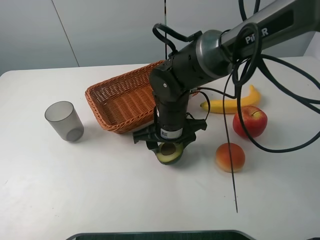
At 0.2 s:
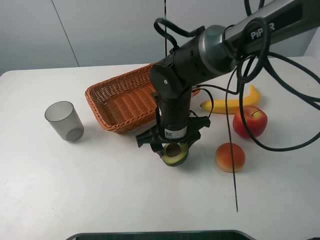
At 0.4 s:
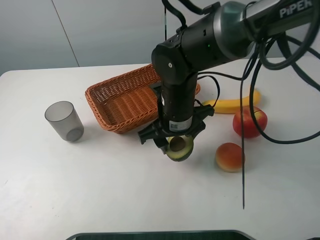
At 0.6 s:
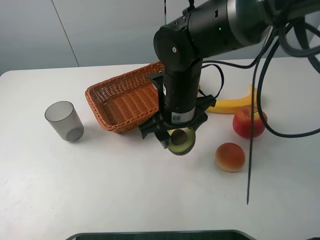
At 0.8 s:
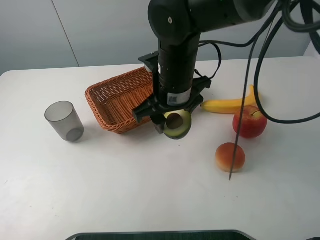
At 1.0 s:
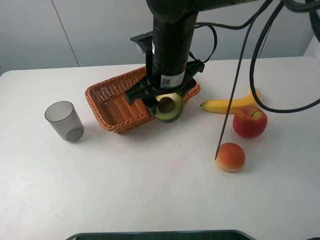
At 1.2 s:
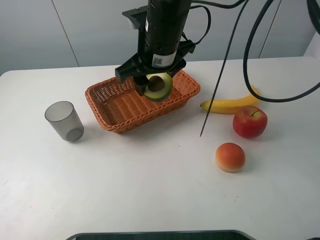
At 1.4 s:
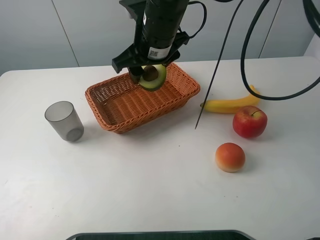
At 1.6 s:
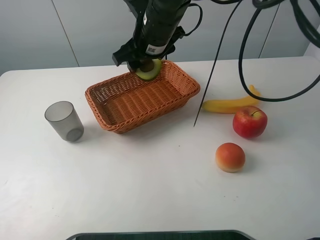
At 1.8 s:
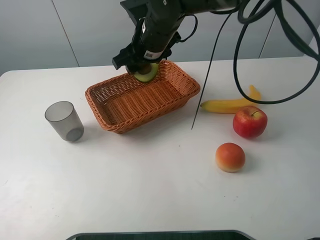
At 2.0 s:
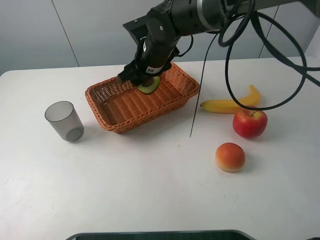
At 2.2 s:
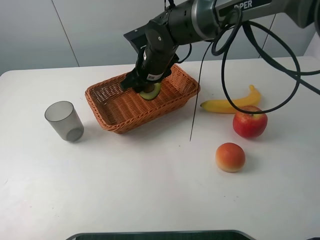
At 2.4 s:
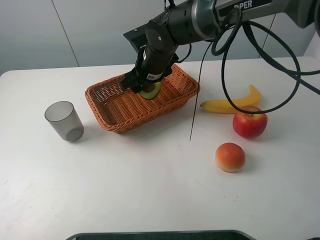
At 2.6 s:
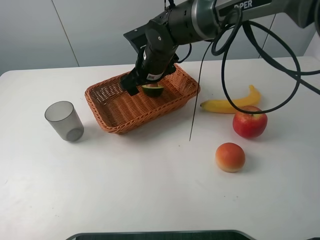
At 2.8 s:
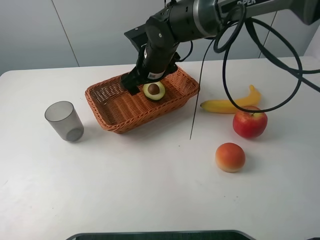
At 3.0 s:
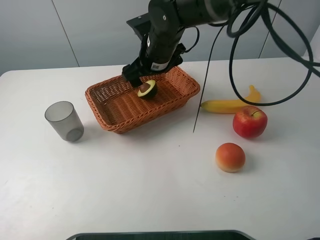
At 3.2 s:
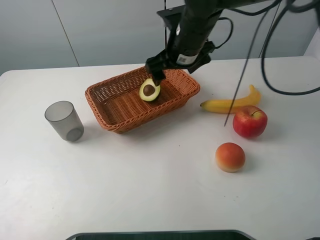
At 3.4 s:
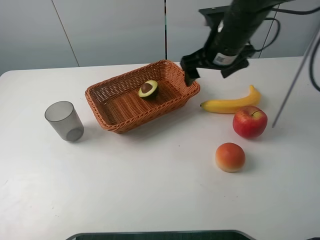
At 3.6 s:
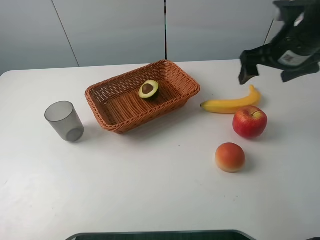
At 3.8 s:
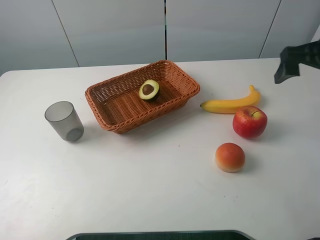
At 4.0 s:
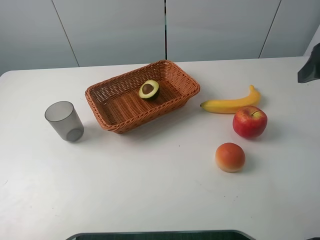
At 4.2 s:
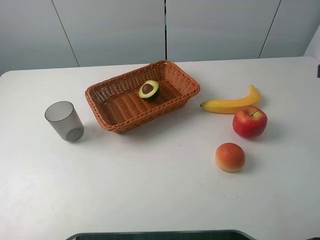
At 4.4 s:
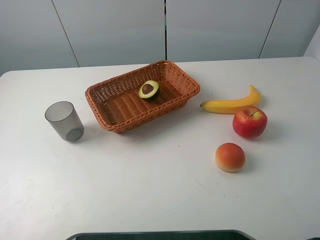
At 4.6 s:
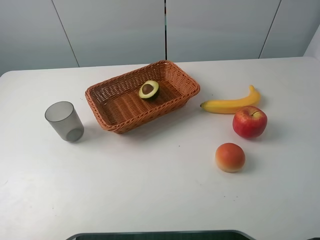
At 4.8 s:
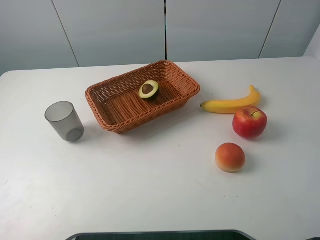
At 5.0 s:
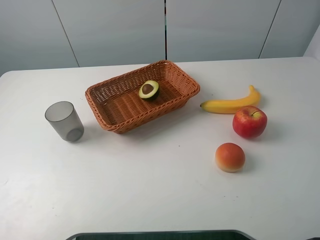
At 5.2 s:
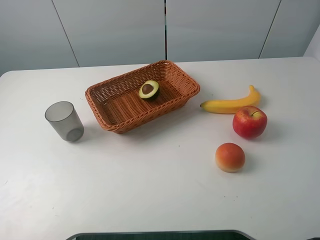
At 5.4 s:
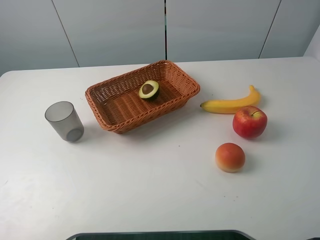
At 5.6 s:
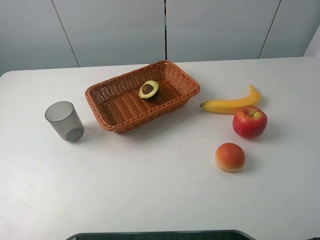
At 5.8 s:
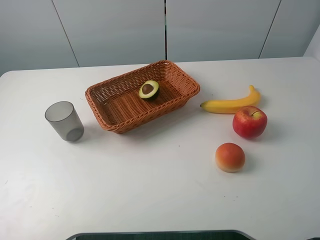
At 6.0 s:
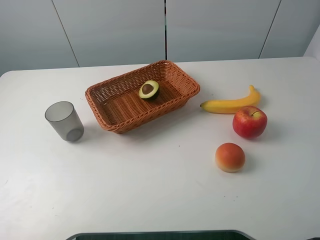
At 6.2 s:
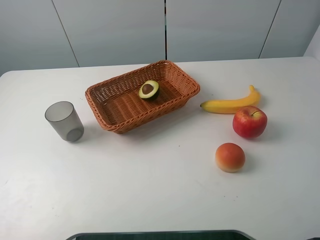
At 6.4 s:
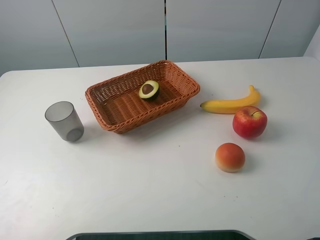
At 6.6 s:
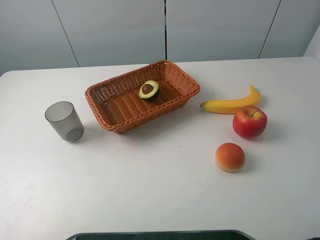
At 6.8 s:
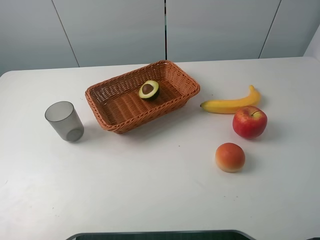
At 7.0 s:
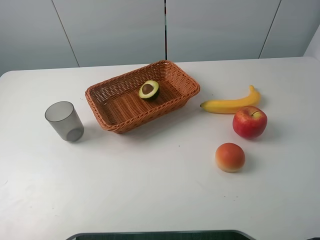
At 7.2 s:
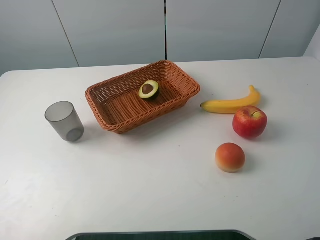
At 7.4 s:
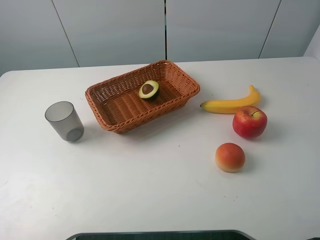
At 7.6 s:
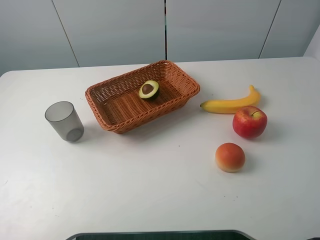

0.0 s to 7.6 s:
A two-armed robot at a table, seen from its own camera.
Task of the whole recording: randomly pick up an item from the table and put it in the basket.
Step, 0.0 to 3.0 s: Place the avocado into the basket with the right gripper.
0.0 to 1.6 s: The right gripper is displaced upward and forward by roughly 15 cm.
1.6 to 3.0 s: The right gripper shifts some 5 cm downward, and opens its fingers.
3.0 to 4.6 s: The right gripper is displaced backward, to the right and upward by roughly 50 cm.
6.0 to 7.6 s: Both grippers stay about where they are.

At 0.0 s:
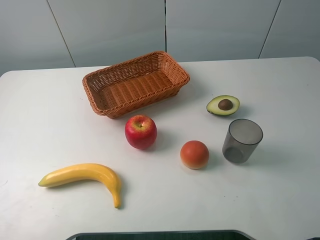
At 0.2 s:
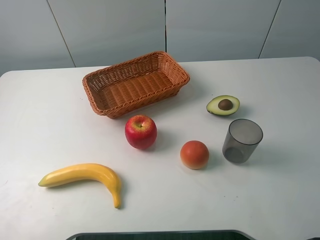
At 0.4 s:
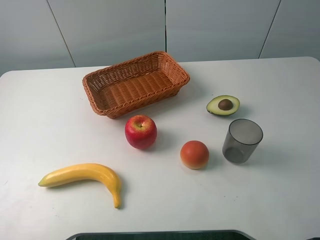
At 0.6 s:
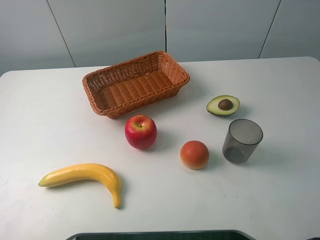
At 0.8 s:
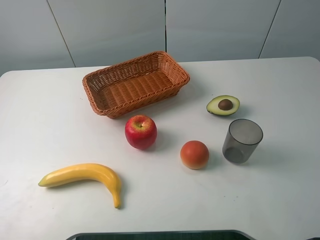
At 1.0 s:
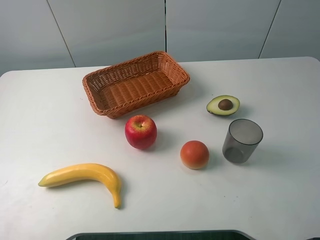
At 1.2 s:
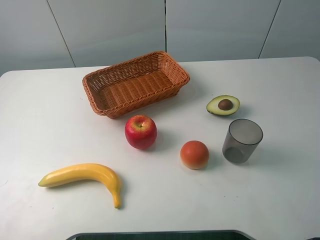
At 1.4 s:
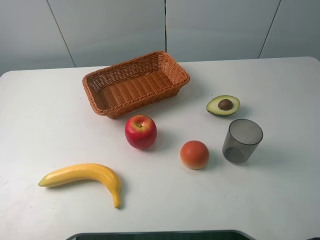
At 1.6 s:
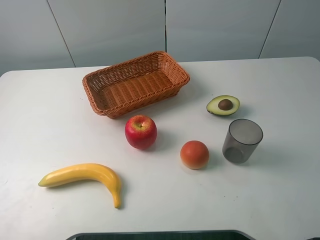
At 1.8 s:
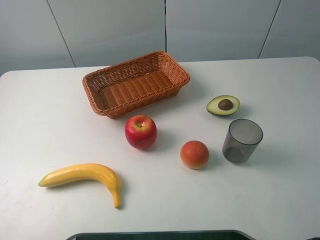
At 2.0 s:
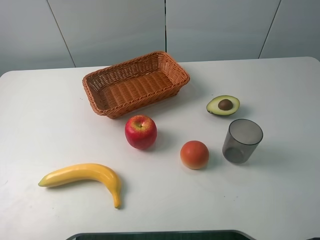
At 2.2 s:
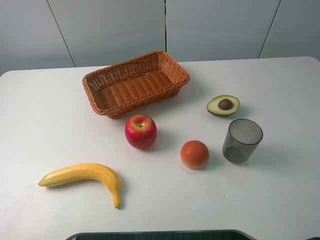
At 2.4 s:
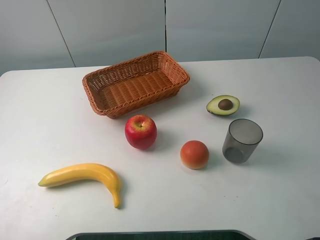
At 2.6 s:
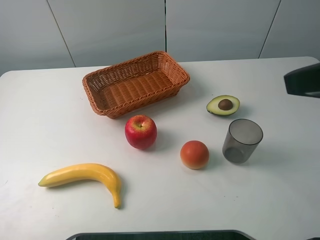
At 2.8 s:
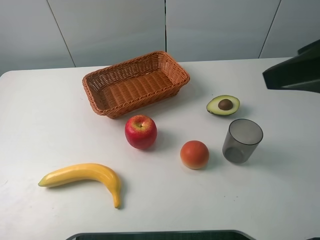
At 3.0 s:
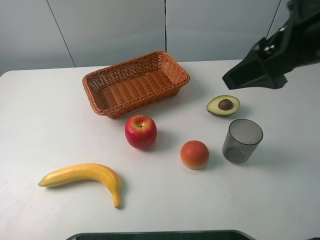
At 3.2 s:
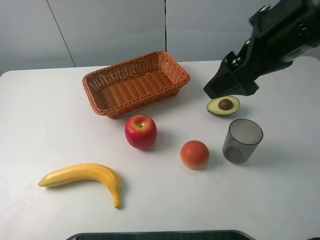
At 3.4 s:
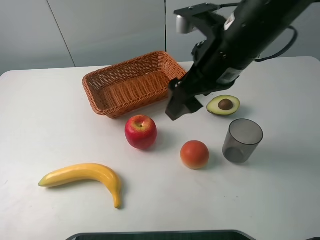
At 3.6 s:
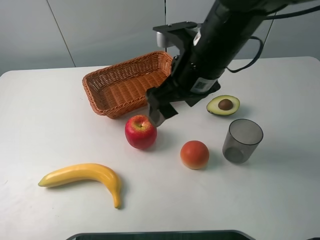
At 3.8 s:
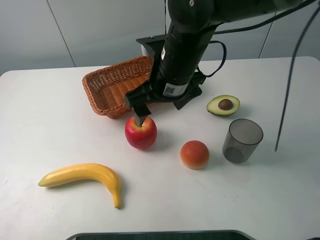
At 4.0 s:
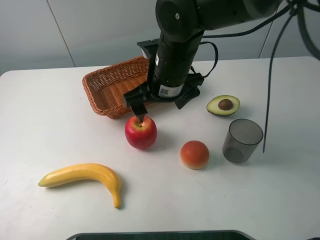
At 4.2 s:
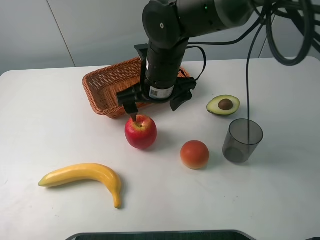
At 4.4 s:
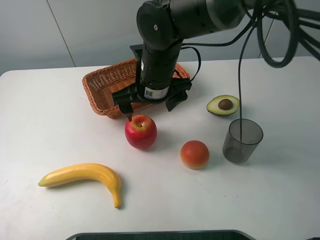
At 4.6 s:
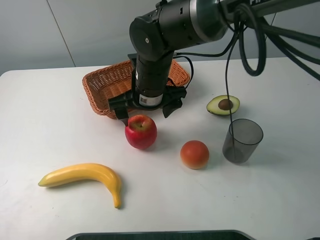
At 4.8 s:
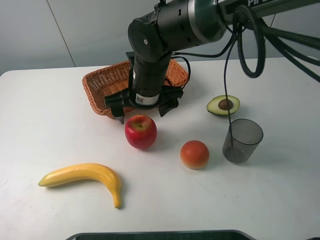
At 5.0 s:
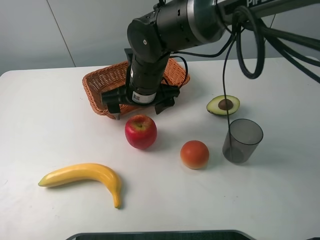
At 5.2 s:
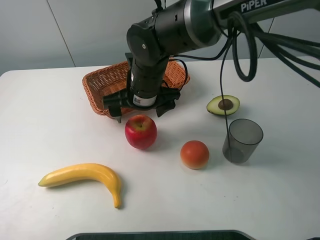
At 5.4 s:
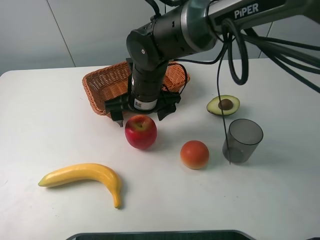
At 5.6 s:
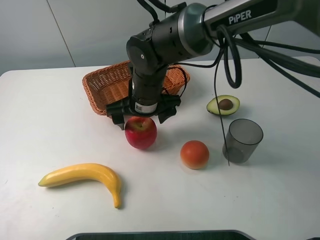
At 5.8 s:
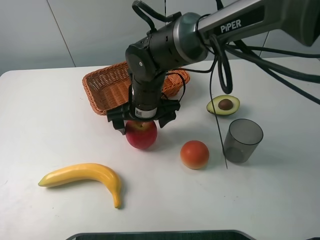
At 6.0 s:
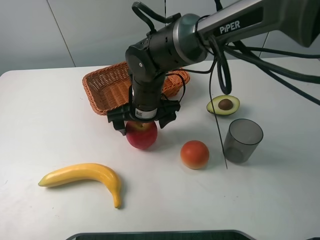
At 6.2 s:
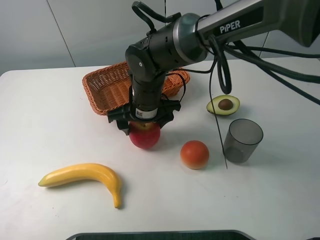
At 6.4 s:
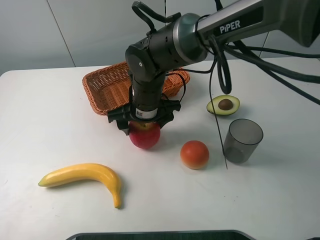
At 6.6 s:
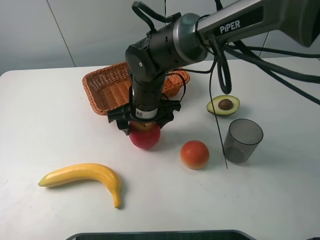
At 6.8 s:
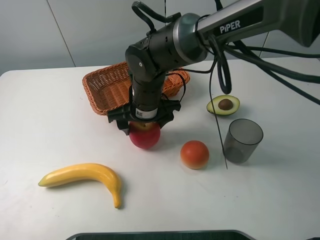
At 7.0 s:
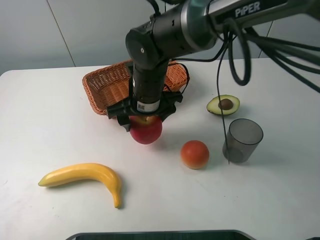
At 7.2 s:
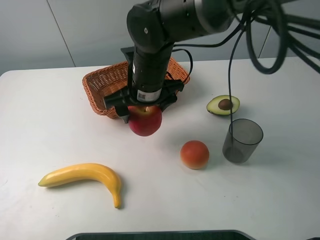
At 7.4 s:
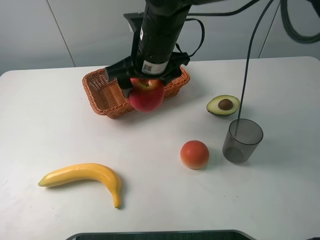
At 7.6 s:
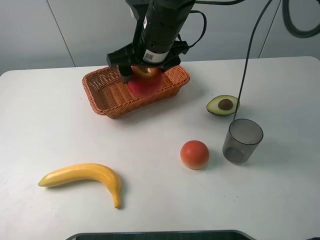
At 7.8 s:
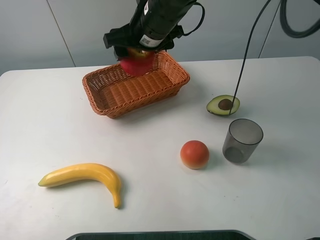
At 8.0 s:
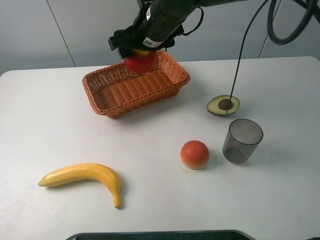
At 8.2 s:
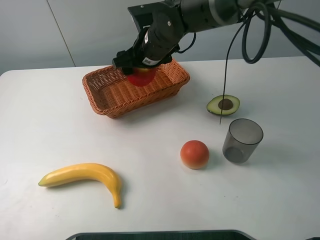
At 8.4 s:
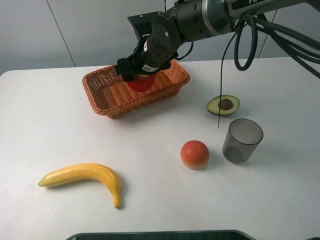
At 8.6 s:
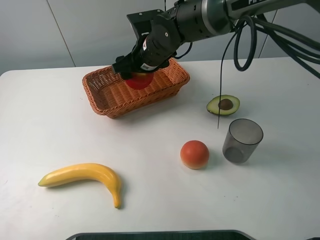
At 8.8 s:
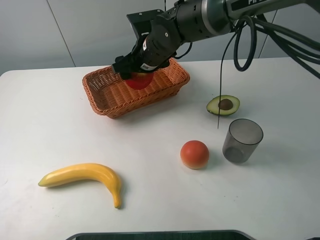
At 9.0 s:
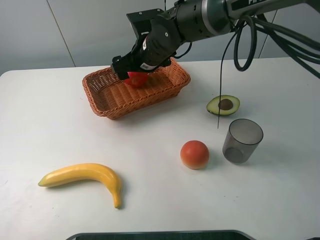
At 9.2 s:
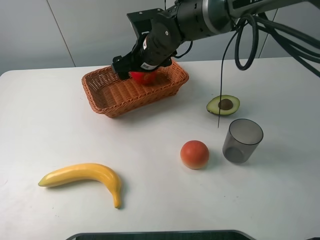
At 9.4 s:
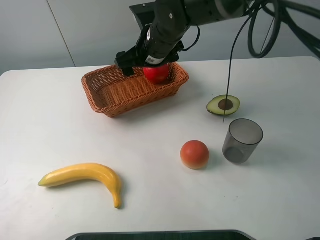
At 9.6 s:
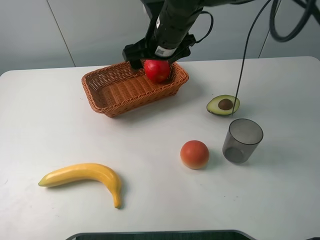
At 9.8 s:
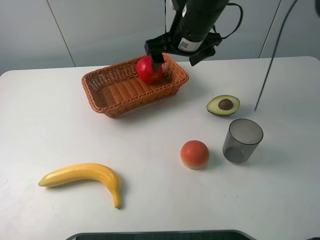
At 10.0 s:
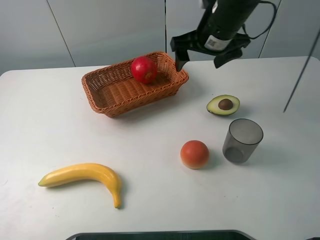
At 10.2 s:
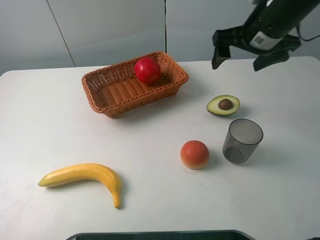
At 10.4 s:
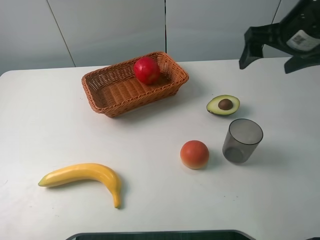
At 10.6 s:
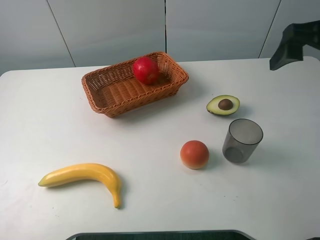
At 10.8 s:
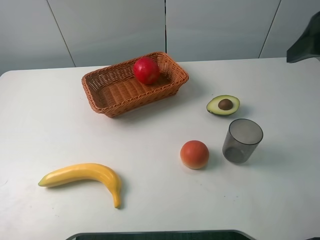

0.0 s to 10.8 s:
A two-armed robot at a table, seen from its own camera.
Task of the whole recording: randomly pick up an item from the table and put it in the basket.
Step, 0.0 to 6.4 s: Grasp the apple with the right gripper.
Step, 6.6 to 9.0 s: Place the apple into the basket with the right gripper.
0.0 to 1.6 s: The two grippers keep their place.
1.6 to 3.0 s: The right gripper travels forward and to the left by some 20 cm.
3.0 to 4.6 s: The right gripper shifts some 25 cm to the left, downward and forward.
4.6 to 6.2 s: The right gripper closes up.
6.2 to 7.8 s: The right gripper goes approximately 15 cm upward and forward.
7.8 to 9.2 s: The right gripper shifts approximately 5 cm downward, and opens up.
9.2 to 10.8 s: The right gripper travels to the right, backward and upward by about 35 cm.

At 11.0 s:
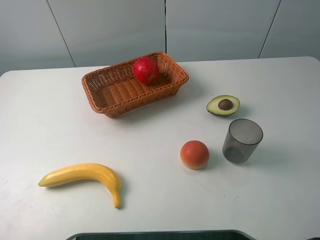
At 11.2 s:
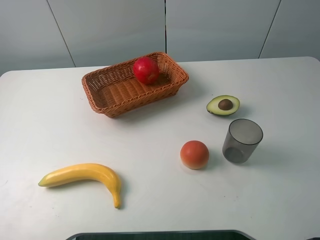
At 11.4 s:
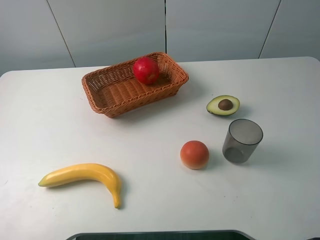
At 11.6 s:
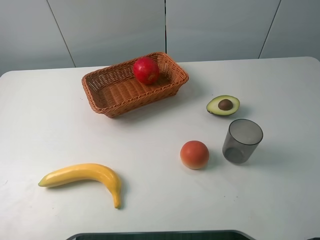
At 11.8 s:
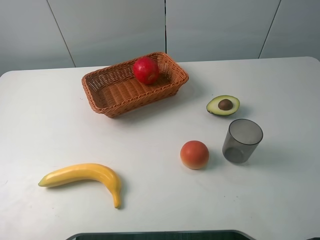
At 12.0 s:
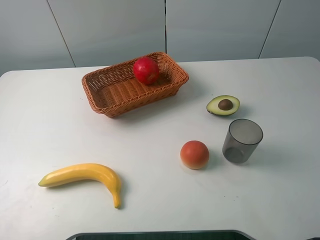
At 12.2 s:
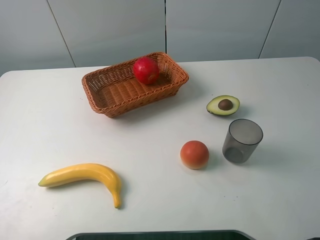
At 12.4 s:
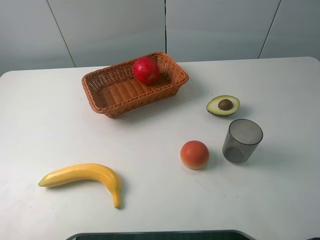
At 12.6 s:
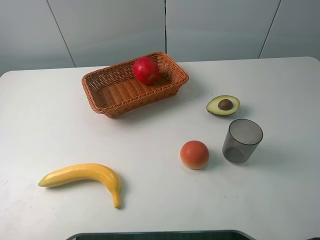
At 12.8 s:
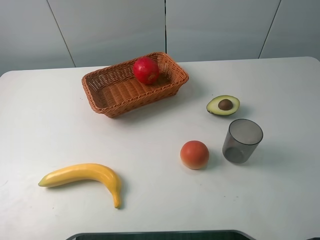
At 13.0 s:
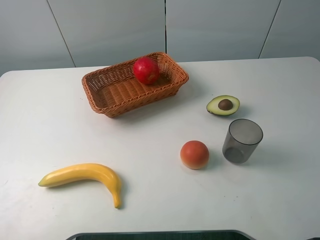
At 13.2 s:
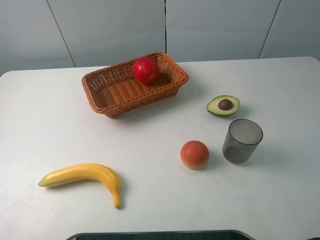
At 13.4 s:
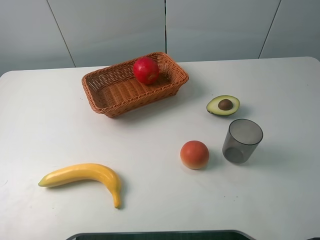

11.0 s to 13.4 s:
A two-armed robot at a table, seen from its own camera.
Task of the whole recording: randomly pick up an item from the table and put it in the basket.
12.2 to 13.4 s: The two grippers keep their place.
